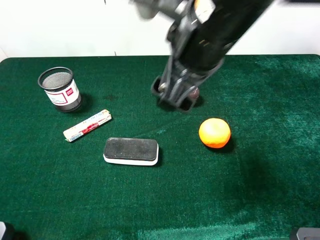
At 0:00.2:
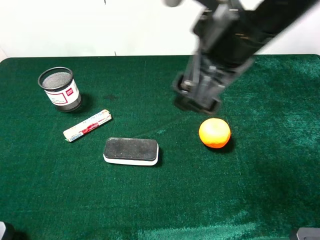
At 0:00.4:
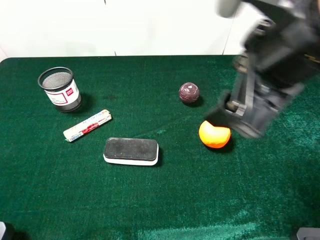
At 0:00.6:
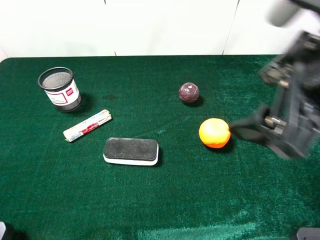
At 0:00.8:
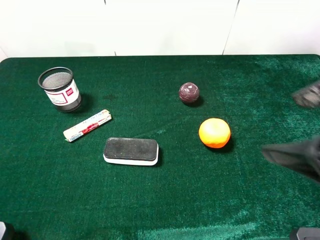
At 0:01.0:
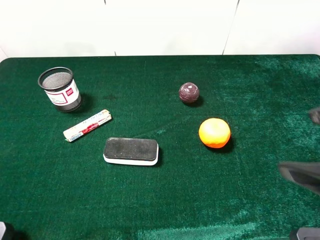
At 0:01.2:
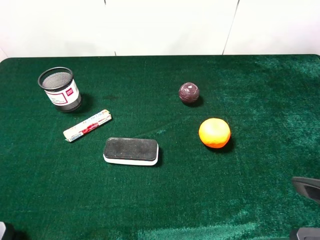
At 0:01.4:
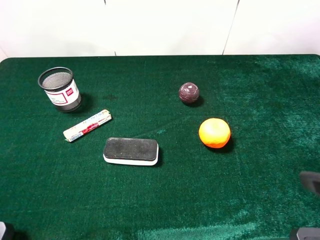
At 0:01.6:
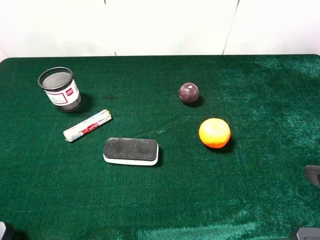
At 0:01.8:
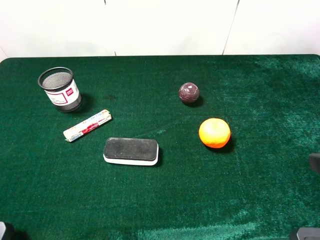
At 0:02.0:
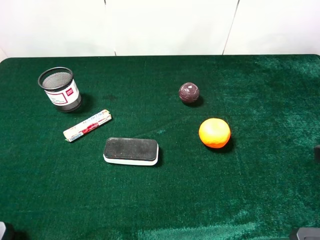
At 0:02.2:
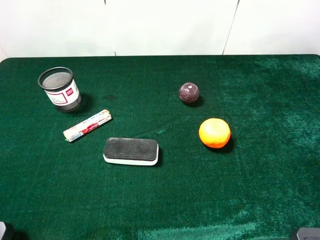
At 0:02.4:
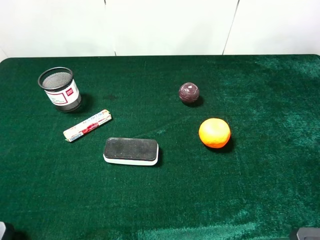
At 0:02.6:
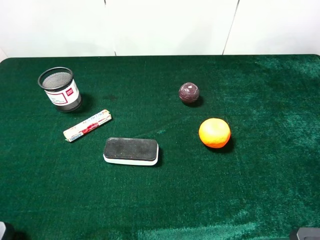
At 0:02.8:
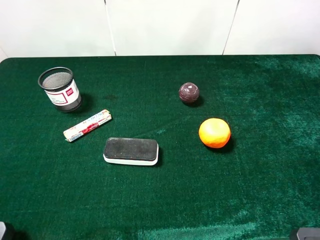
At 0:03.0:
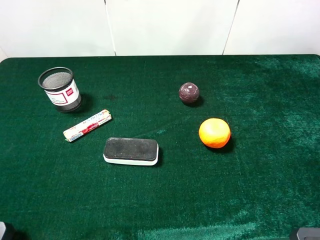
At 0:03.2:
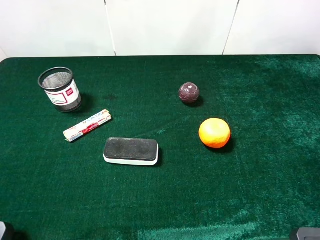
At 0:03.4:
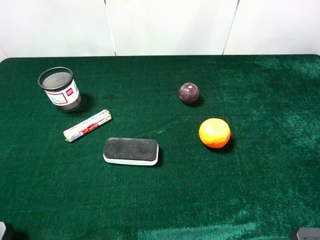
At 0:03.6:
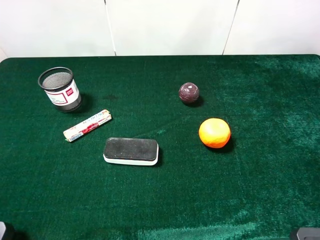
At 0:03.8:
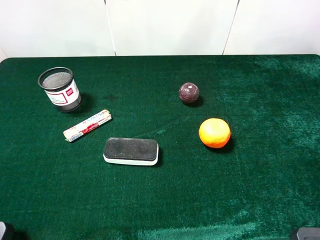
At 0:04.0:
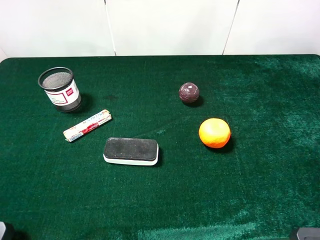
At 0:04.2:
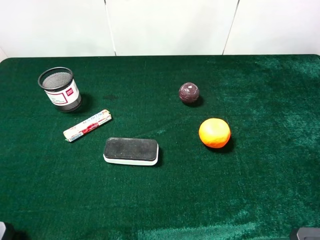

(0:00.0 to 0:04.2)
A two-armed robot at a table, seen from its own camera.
Task of the whole recording: the gripper move the object.
0:00.0 - 0:01.4: The right gripper goes roughly 25 cm to the right and backward.
0:02.8 - 0:04.2: Both grippers stay about where they are.
